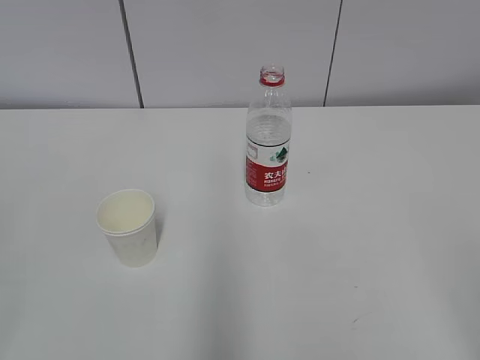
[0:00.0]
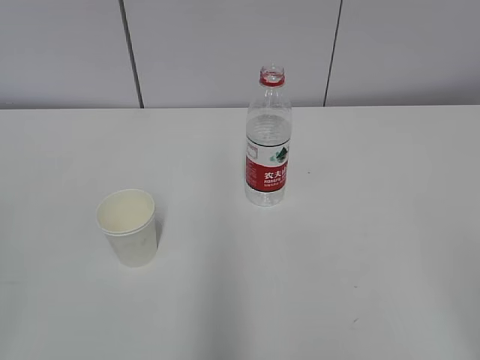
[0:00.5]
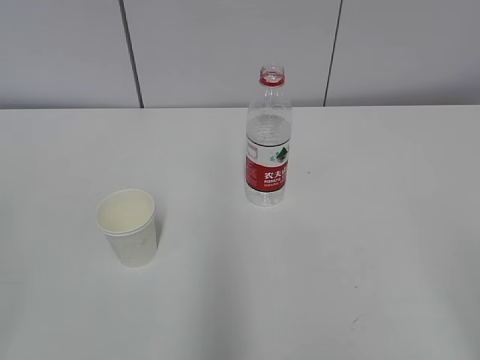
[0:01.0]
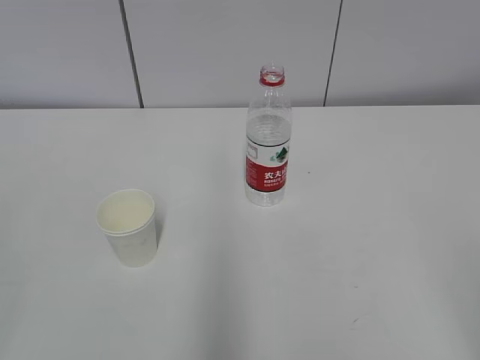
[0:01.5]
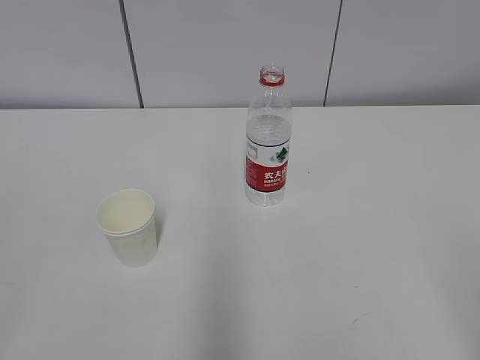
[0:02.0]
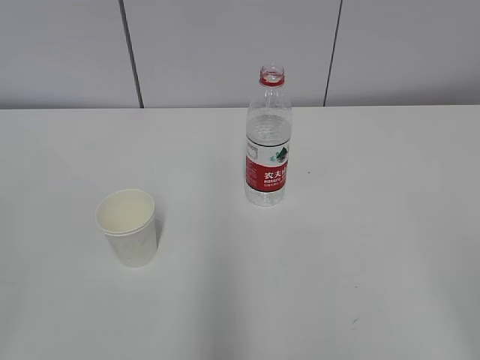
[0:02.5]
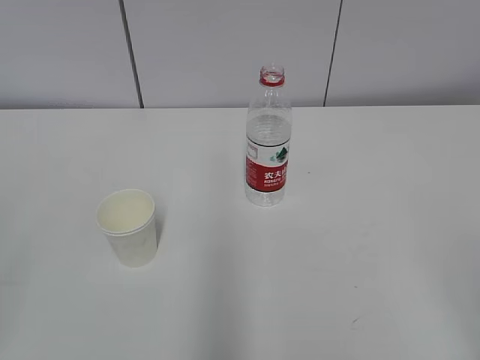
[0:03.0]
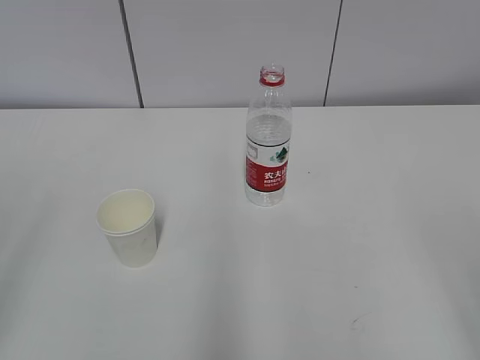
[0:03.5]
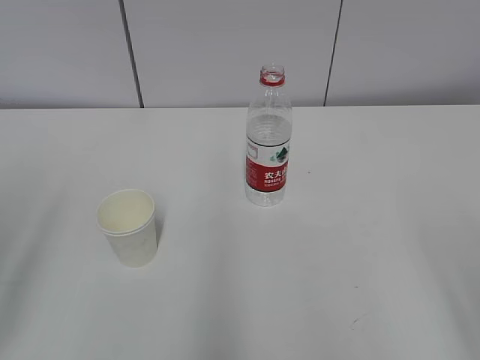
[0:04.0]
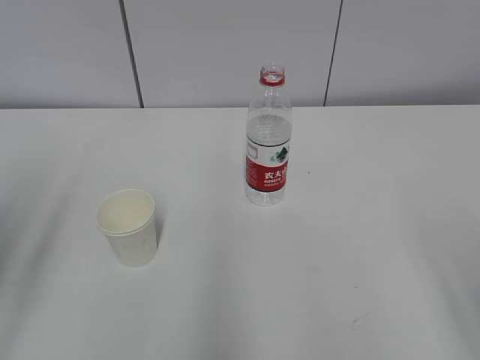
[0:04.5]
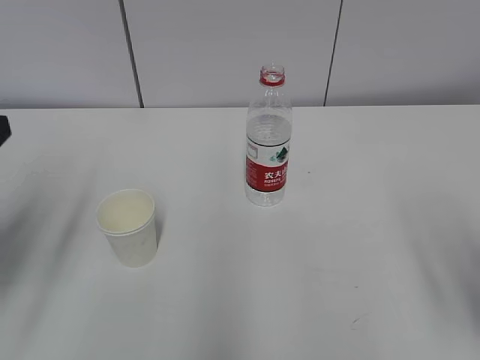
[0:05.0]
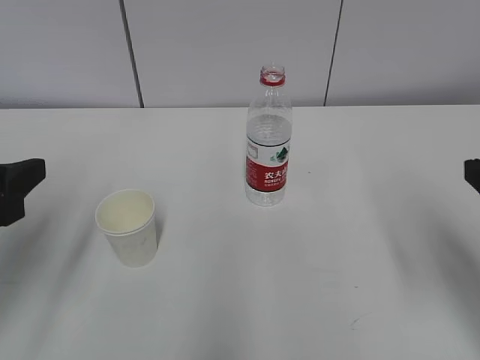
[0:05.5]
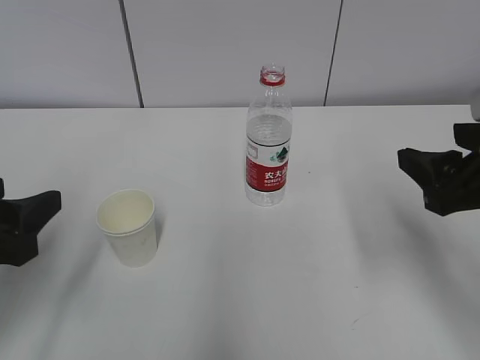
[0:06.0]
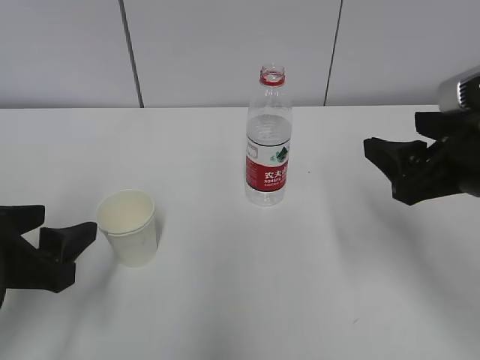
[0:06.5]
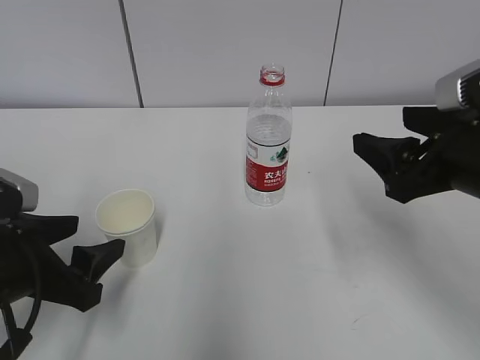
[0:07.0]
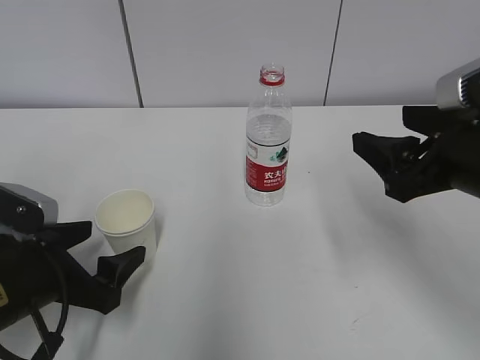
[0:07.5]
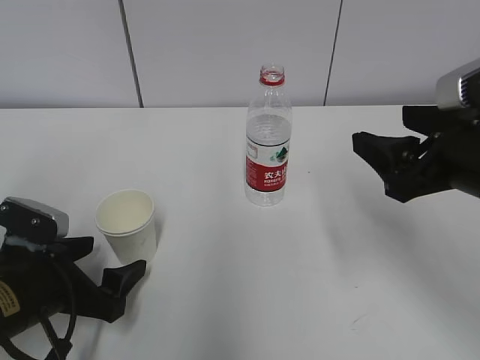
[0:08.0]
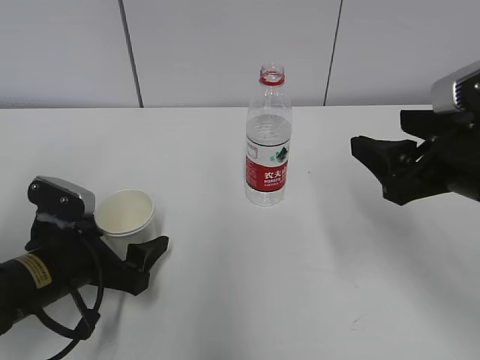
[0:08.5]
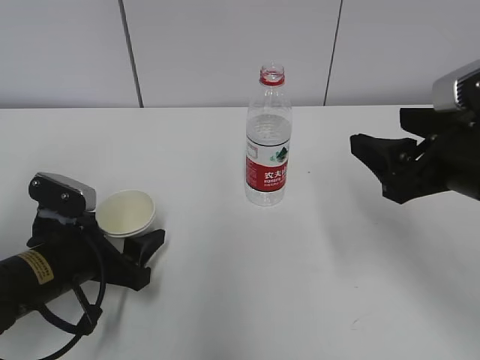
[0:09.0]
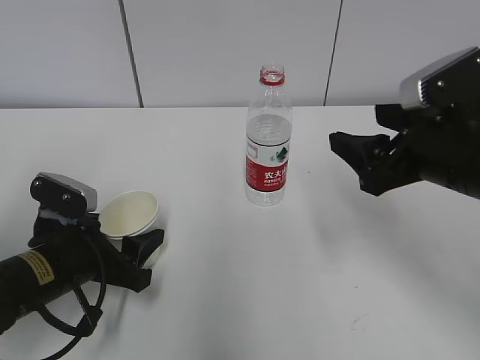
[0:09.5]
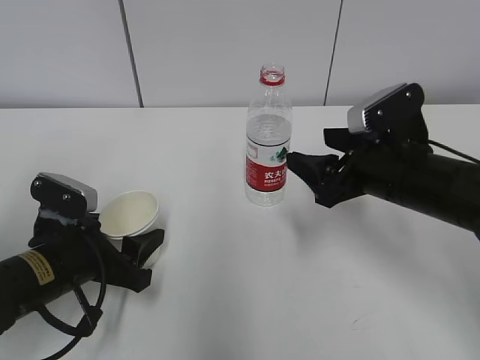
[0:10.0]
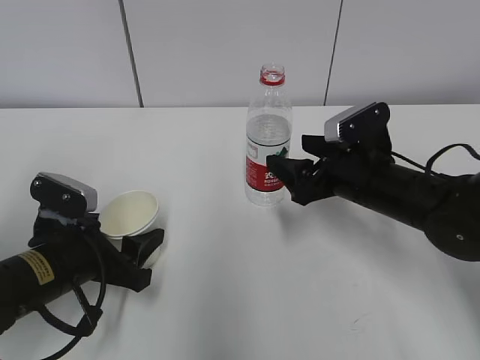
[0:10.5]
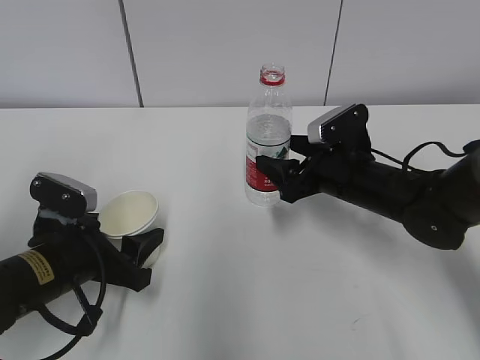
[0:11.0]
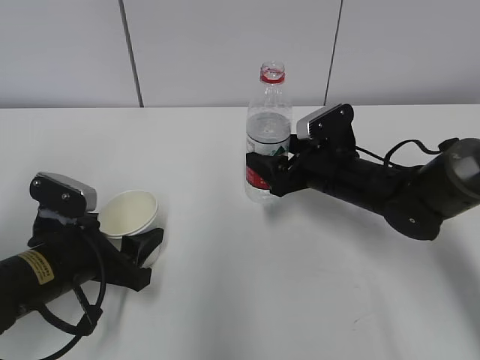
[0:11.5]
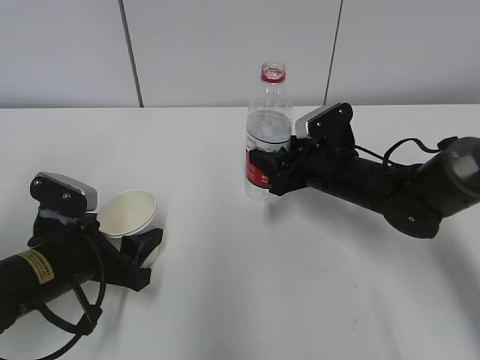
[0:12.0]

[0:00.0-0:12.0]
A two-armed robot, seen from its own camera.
Step, 0:00.0 to 0:07.5: Grab the paper cup with the left hand.
Step, 0:08.0 to 0:09.5: Grab the water bottle with the right hand.
0:04.0 to 0:06.0: The left gripper shifts about 10 cm downward and forward, while the right gripper goes some 15 cm forward.
0:06.0 to 0:08.0: The left gripper goes roughly 10 cm downward.
0:08.0 to 0:10.0: The right gripper moves forward and downward, some 10 cm. Meanwhile the left gripper closes its fingers.
0:10.0 to 0:12.0: The right gripper heads forward and downward, covering about 10 cm, and closes up.

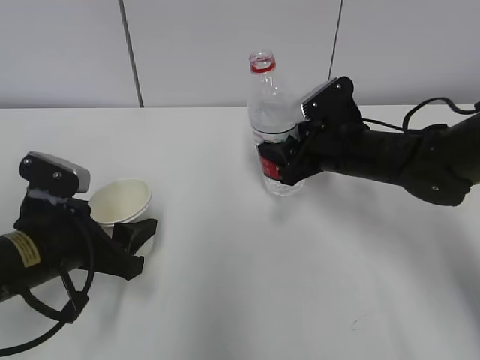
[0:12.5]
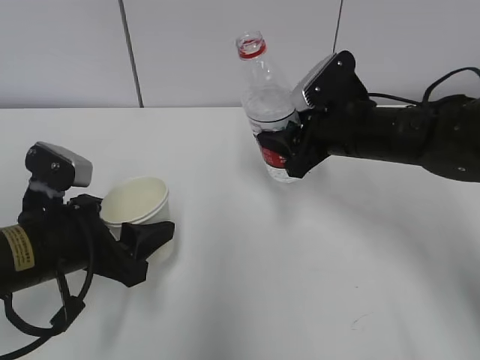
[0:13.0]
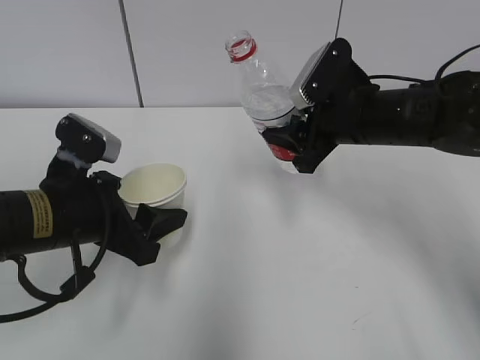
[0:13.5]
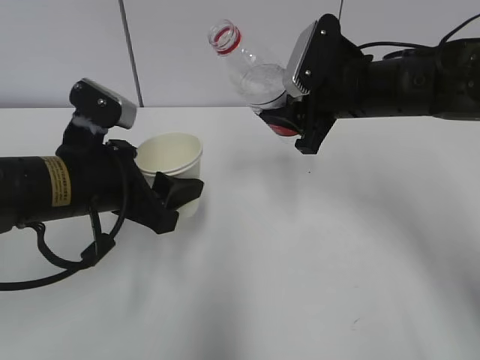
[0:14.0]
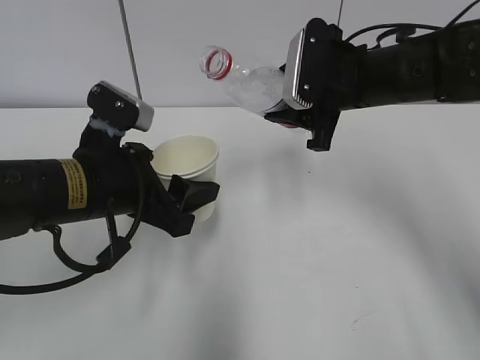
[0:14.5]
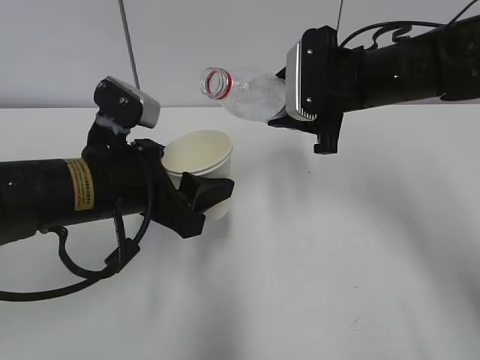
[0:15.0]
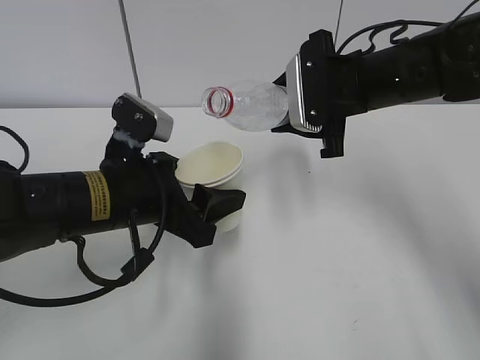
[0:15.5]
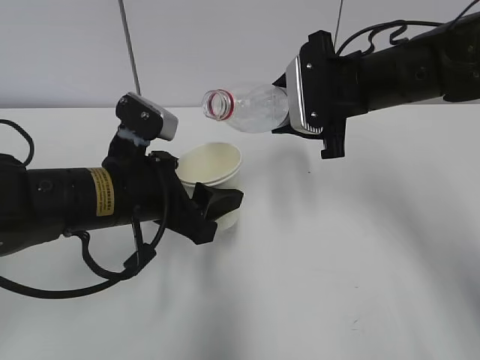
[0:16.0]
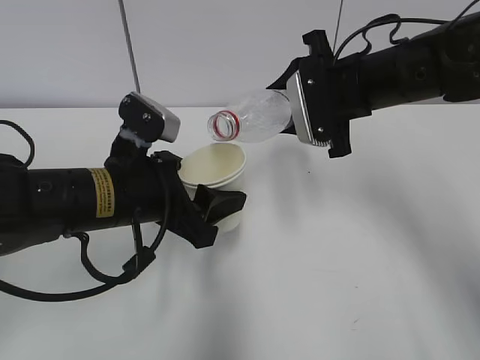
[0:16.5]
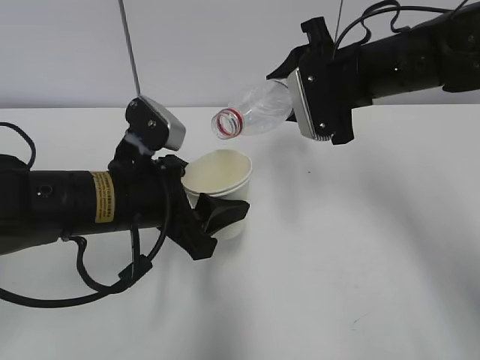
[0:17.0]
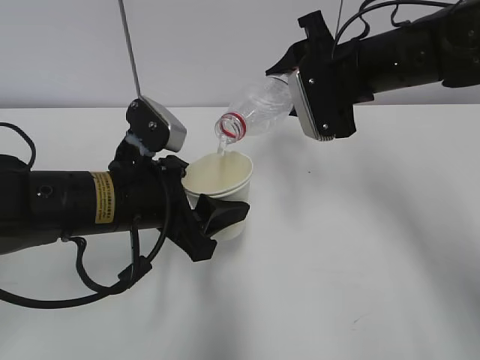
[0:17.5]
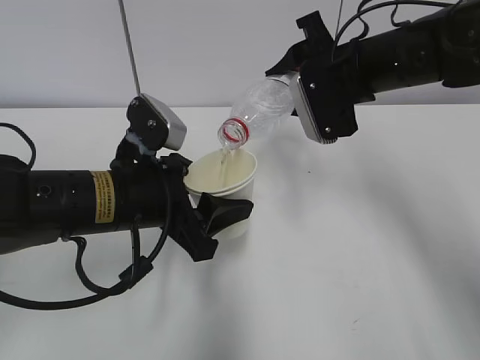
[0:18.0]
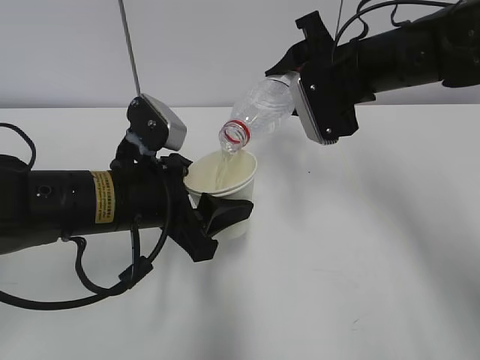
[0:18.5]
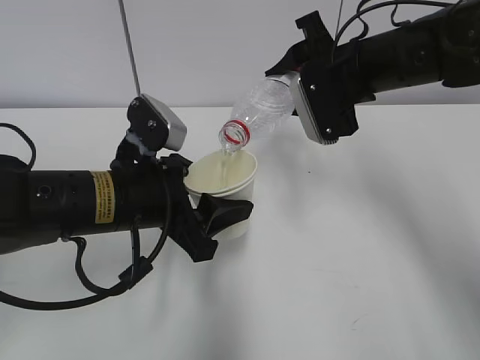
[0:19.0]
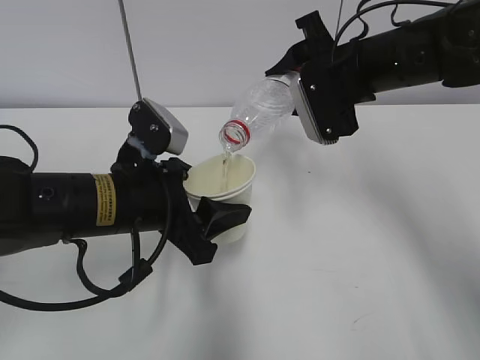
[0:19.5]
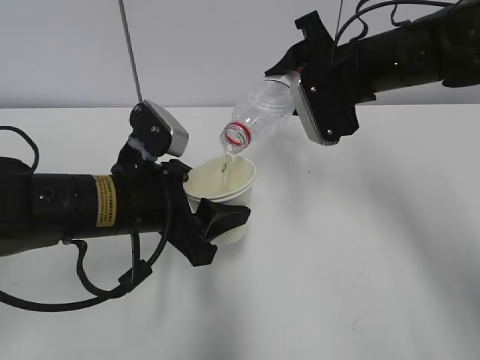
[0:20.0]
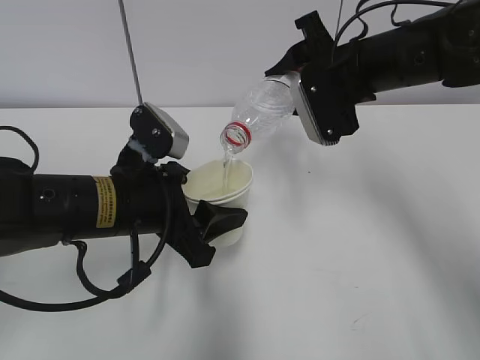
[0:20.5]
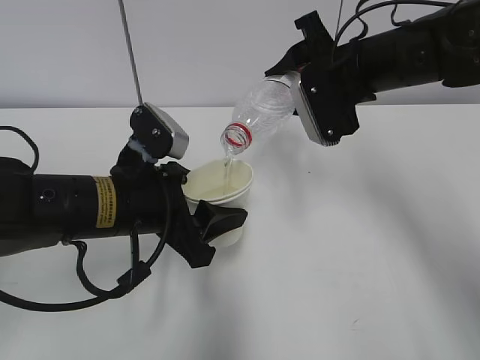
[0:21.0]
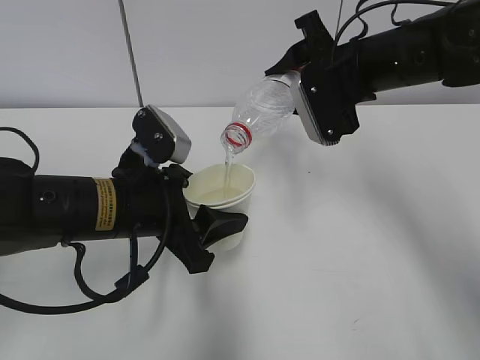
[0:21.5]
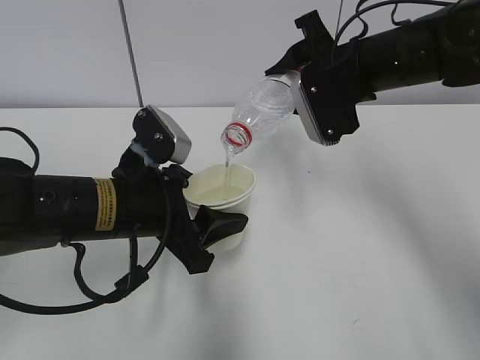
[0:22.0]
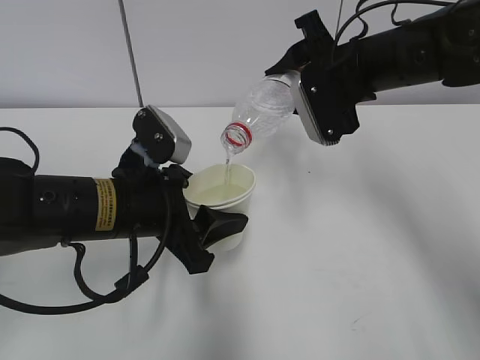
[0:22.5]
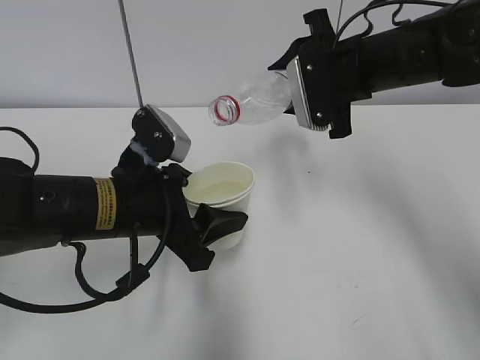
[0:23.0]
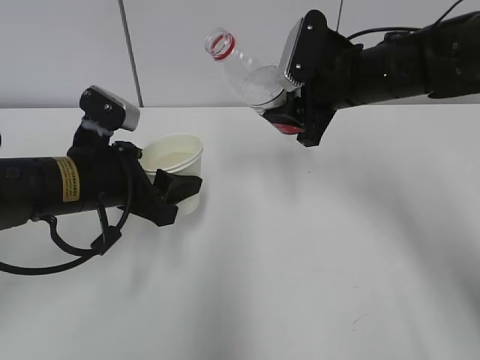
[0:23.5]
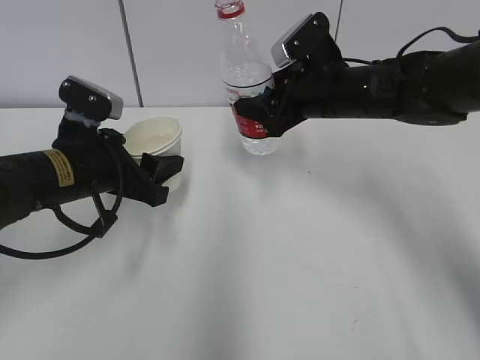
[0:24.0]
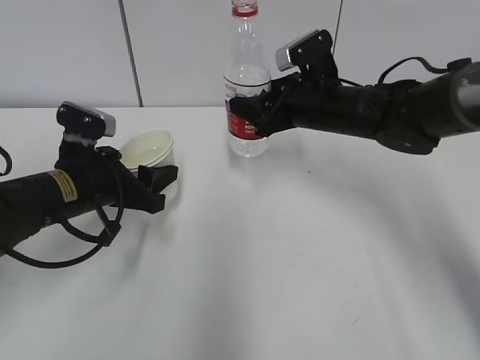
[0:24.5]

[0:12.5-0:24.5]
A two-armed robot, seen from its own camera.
Step, 0:12.5 to 0:14.5: Lift the paper cup with the left hand.
Step, 0:15.0 to 0:19.0: Fill water with the left hand.
Step, 0:15.0 to 0:19.0: Pour water with the right hand.
Step, 0:20.5 to 0:21.5: Place the paper cup with the left hand.
0:12.5 to 0:14.5: The left gripper travels upward and to the right by some 10 cm; the right gripper goes about 10 cm upward.
0:16.5 to 0:18.5: The grippers stay close to where they were, moving slightly.
0:18.5 to 0:22.5: Both grippers stay about where they are.
0:22.5 to 0:24.5: The left gripper travels to the left and forward by some 10 cm; the right gripper moves downward, about 10 cm.

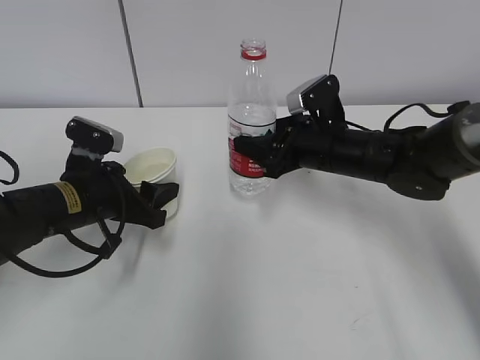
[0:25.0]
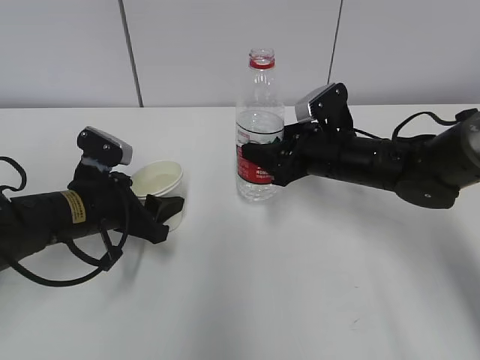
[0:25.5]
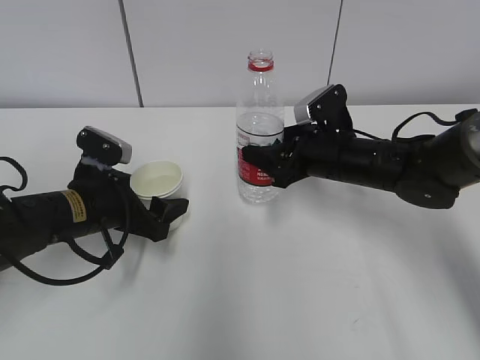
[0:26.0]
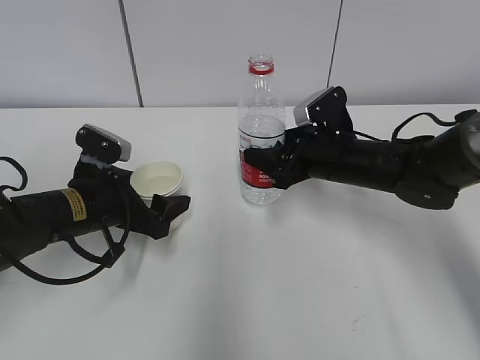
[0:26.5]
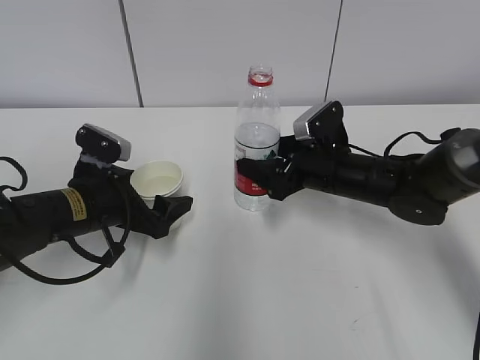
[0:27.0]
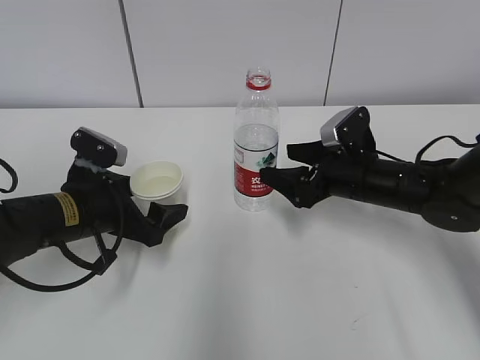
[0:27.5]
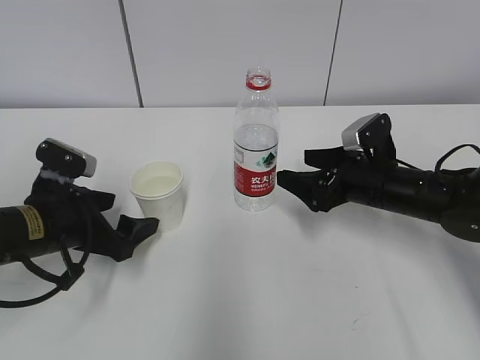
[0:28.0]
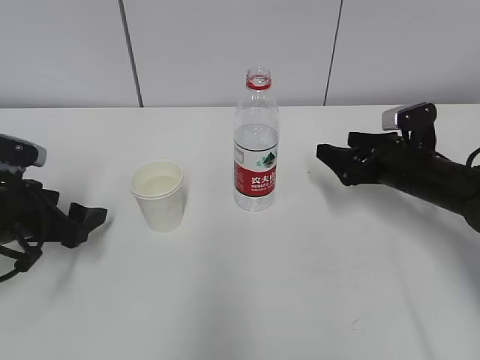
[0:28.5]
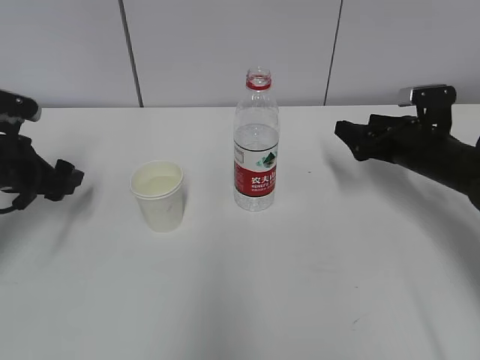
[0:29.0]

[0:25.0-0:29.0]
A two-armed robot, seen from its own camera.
0:25.0 to 0:27.0: The left gripper opens. The right gripper opens up.
0:27.0 to 0:29.0: The left gripper is displaced to the left by approximately 10 cm. Meanwhile the right gripper goes about 15 cm to the right.
